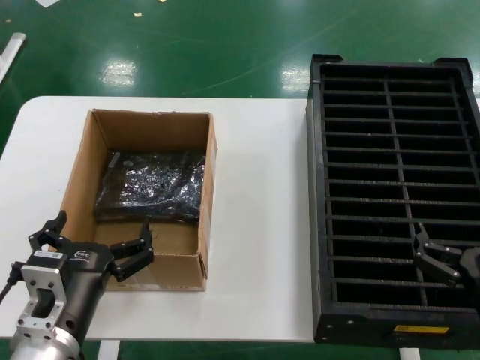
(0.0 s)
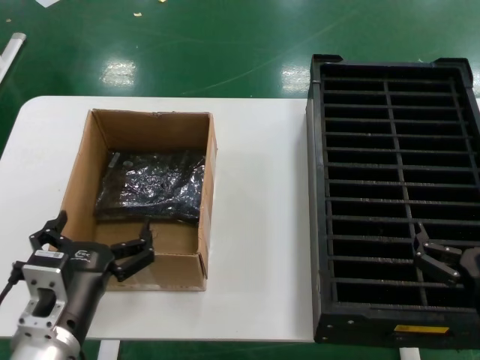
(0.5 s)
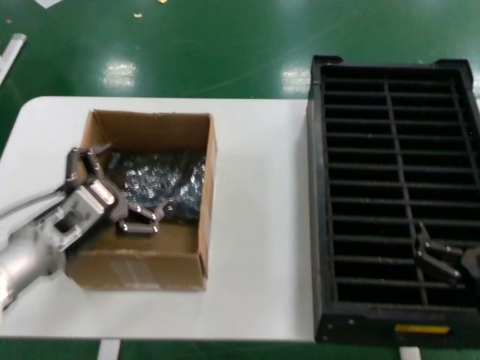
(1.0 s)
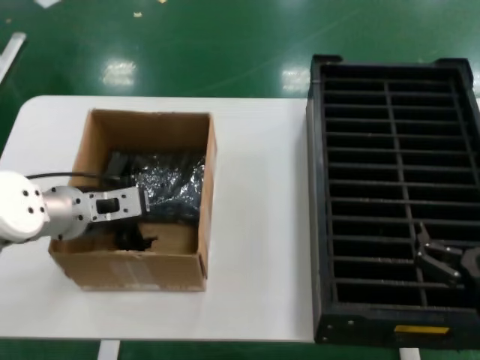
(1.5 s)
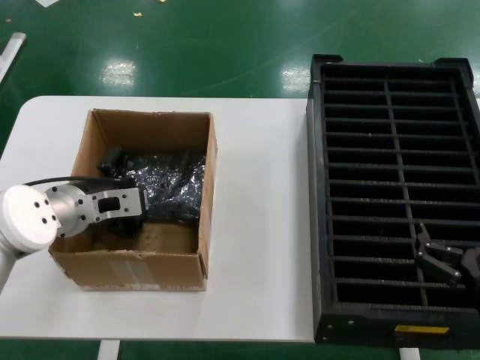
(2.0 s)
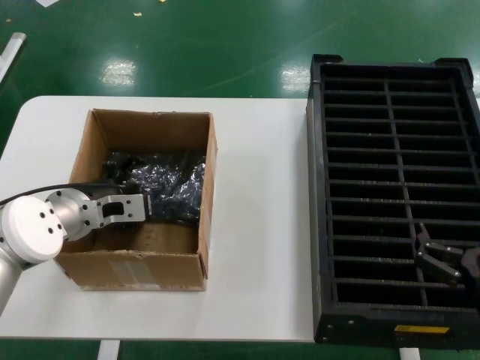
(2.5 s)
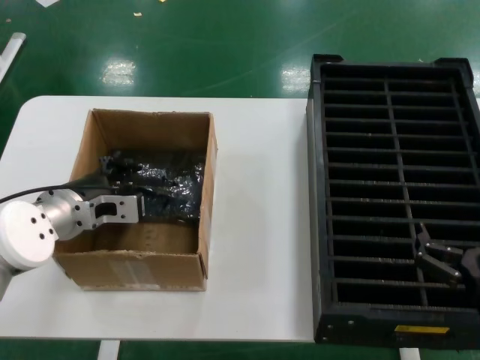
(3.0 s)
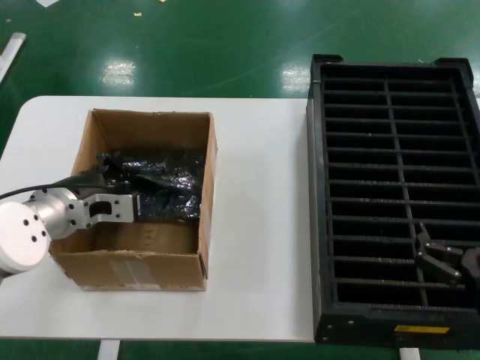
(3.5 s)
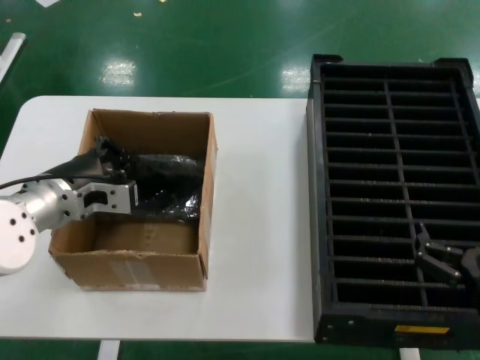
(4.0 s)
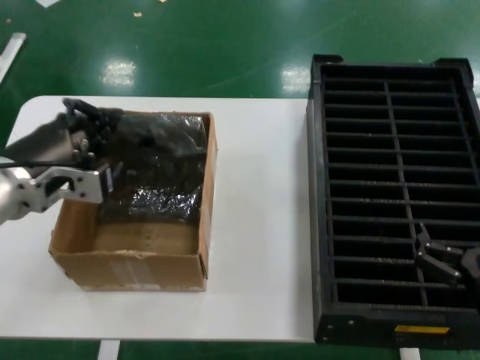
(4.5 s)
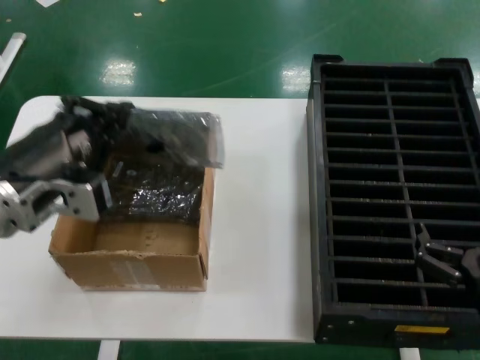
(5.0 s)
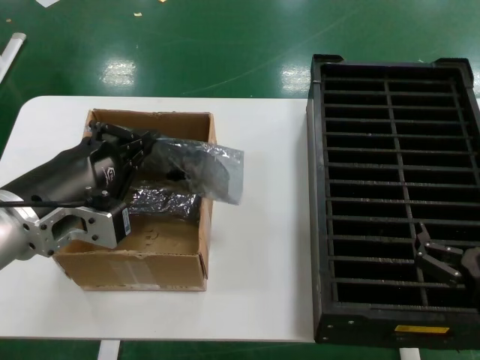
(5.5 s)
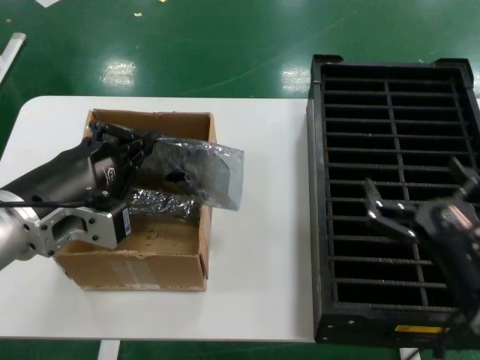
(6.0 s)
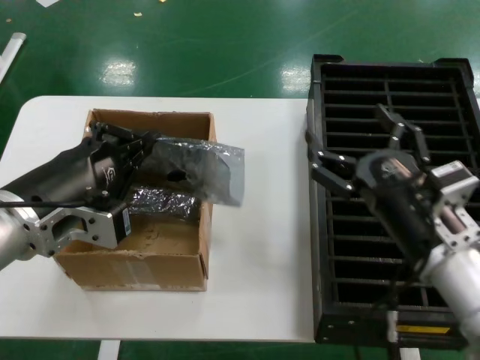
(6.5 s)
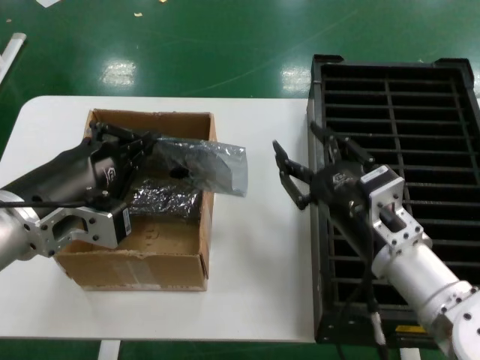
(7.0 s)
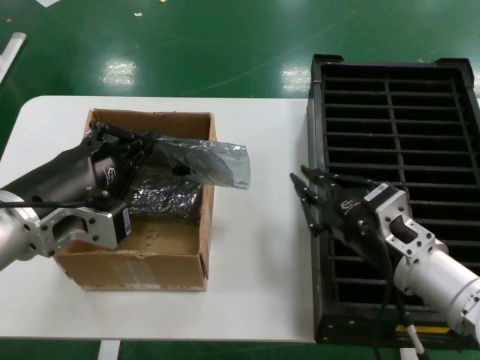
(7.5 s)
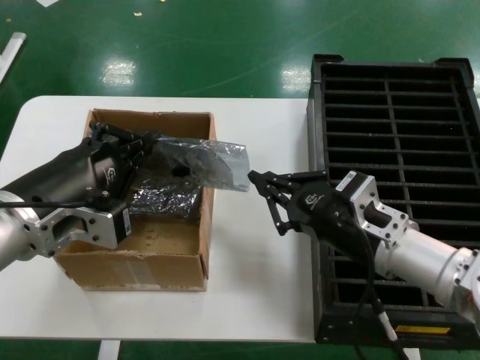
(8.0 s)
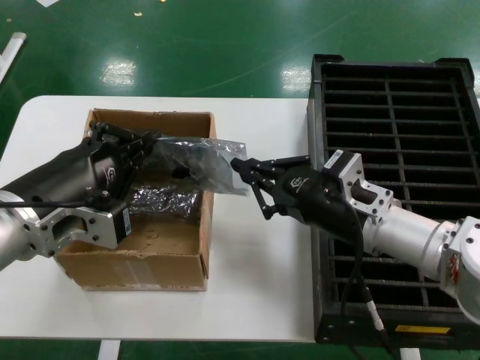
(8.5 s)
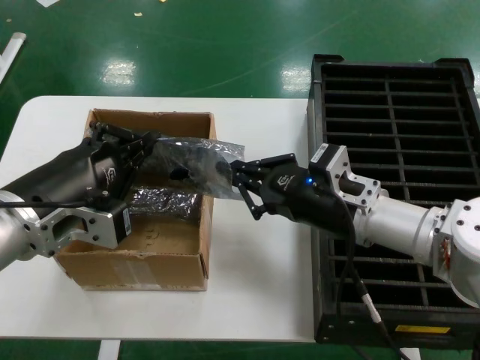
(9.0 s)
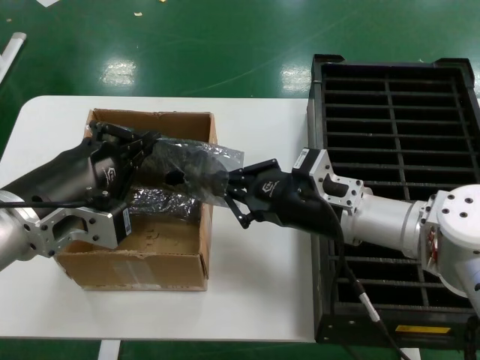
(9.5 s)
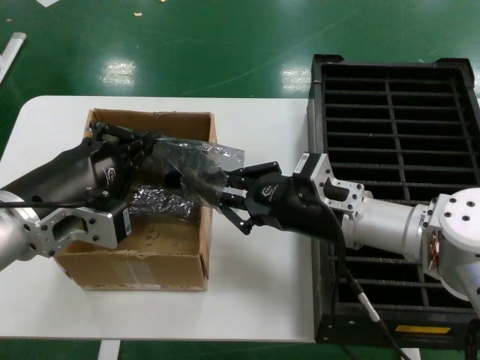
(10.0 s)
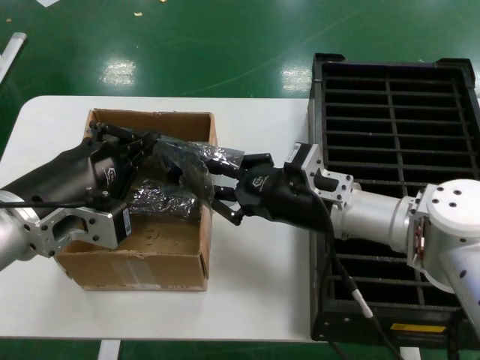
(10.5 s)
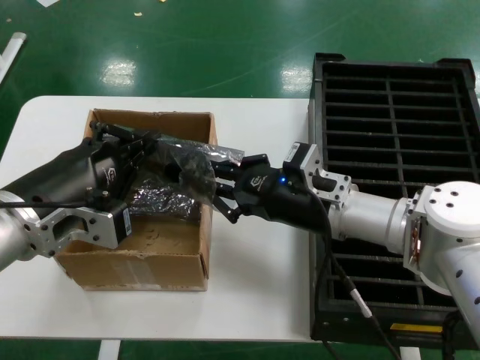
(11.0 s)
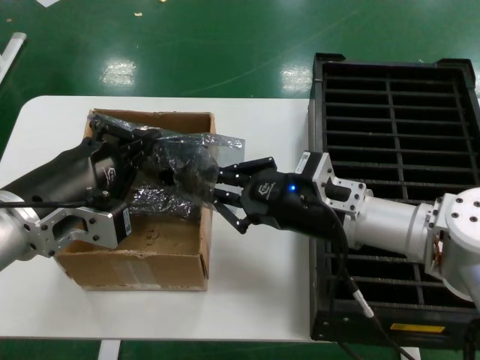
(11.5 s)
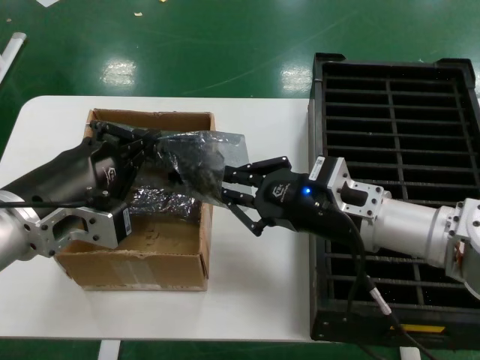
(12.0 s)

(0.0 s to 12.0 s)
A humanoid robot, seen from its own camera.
Task of the whole recording: take out graphics card from box remove packaging put into black container.
Step, 0.0 s - 3.0 s: Grasp the bag.
Step, 3.5 s - 5.5 s: Lift the bag.
0.0 s - 2.0 s: The left hand shifts about 20 cm forward and upward.
2.0 s - 4.0 s: There are only small adjustments of the hands.
4.0 s - 6.0 s: The left hand goes roughly 15 cm backward and upward.
6.0 s - 8.0 s: The right hand travels forward and to the left by approximately 10 cm.
8.0 s - 10.0 s: The right hand is displaced forward by some 5 cm.
10.0 s - 12.0 s: The hands make only small movements.

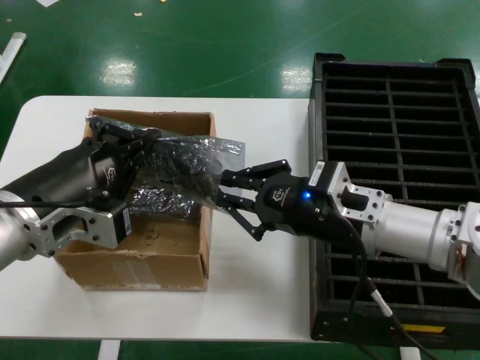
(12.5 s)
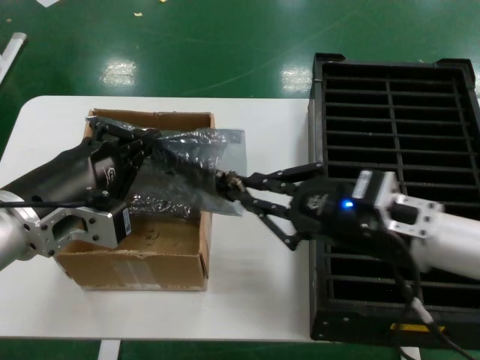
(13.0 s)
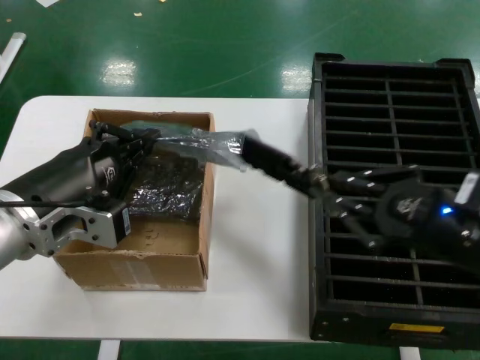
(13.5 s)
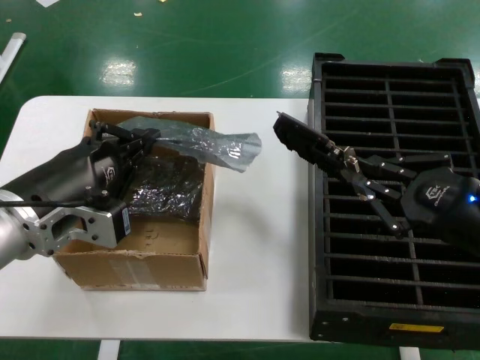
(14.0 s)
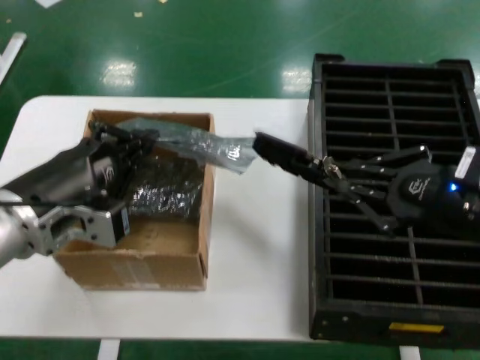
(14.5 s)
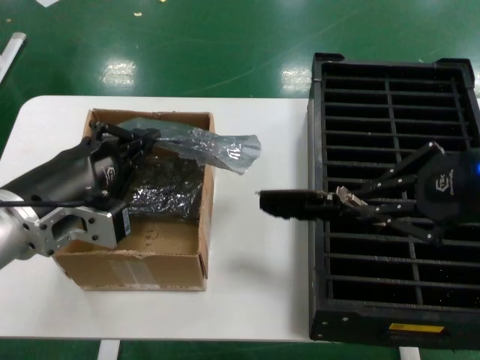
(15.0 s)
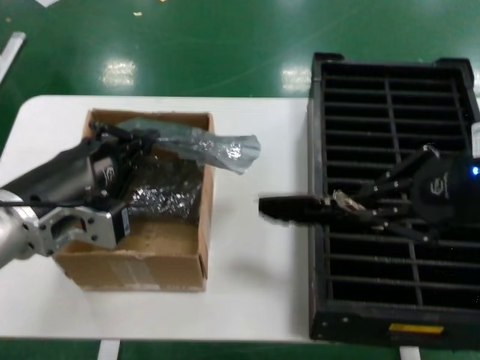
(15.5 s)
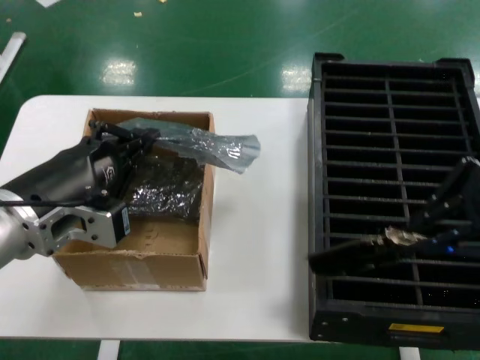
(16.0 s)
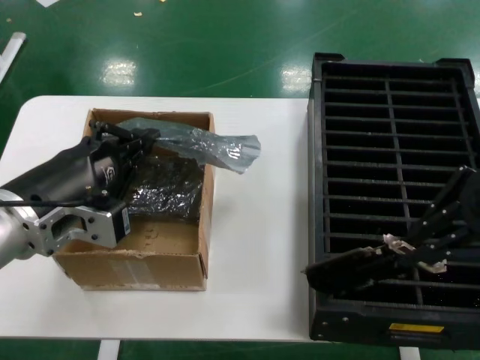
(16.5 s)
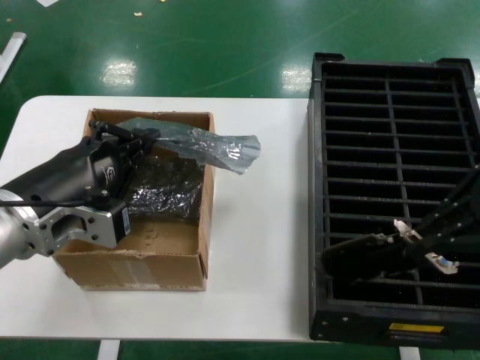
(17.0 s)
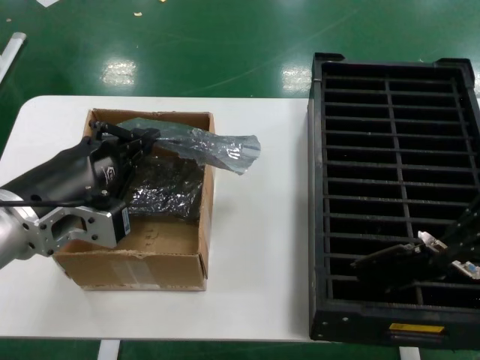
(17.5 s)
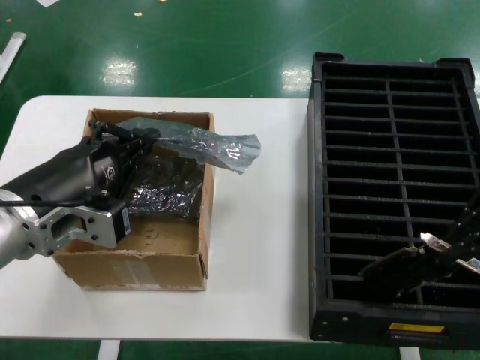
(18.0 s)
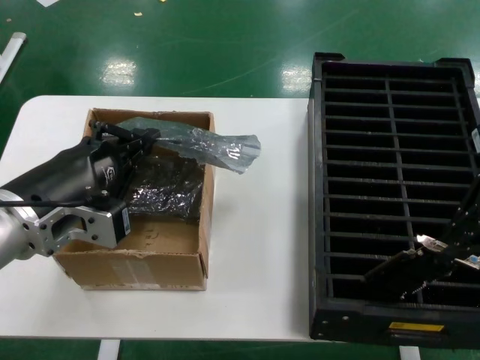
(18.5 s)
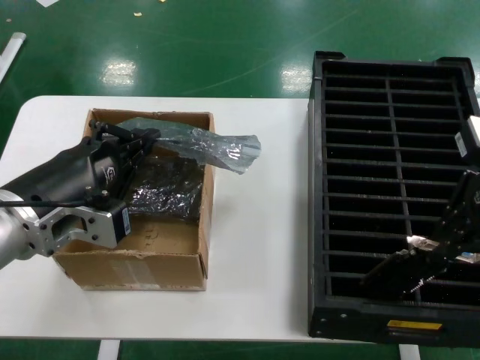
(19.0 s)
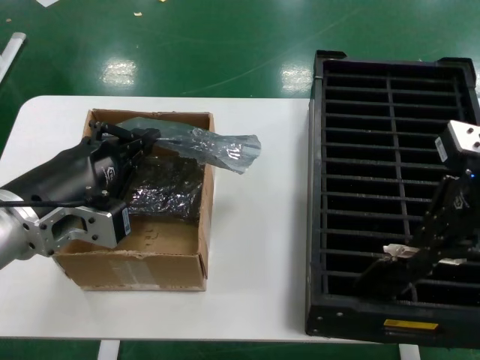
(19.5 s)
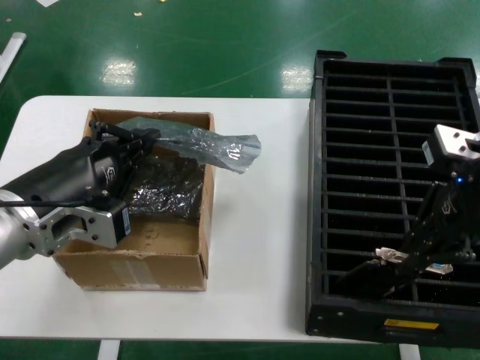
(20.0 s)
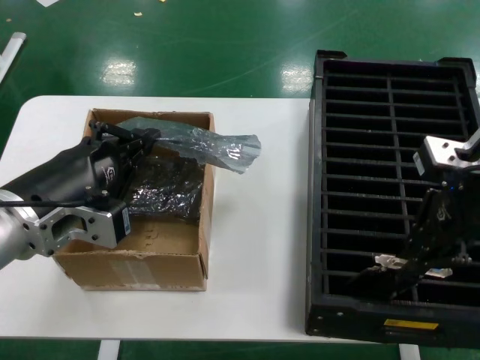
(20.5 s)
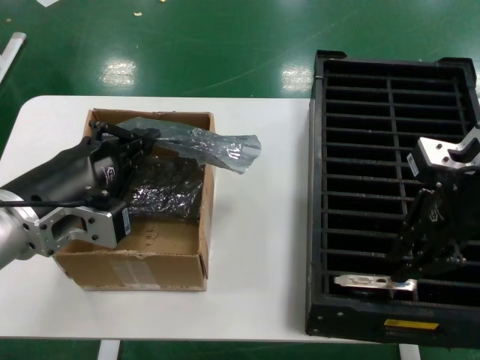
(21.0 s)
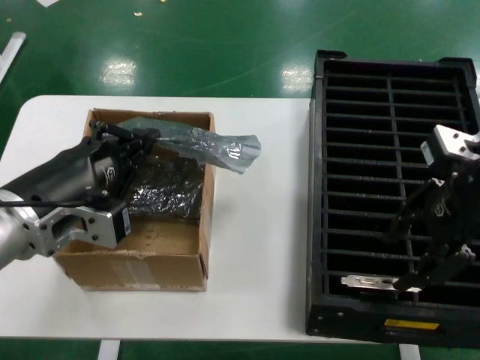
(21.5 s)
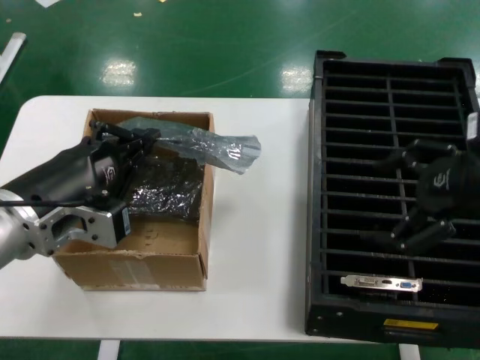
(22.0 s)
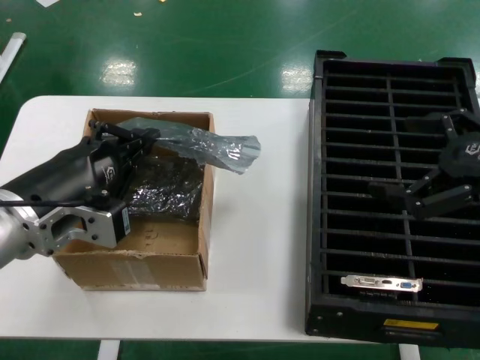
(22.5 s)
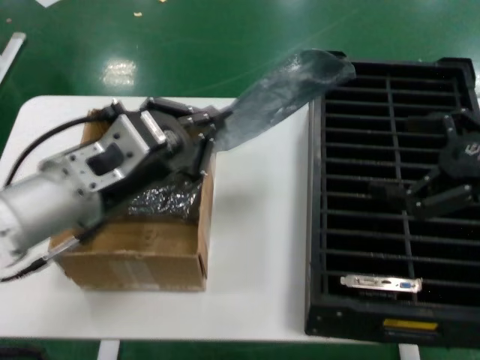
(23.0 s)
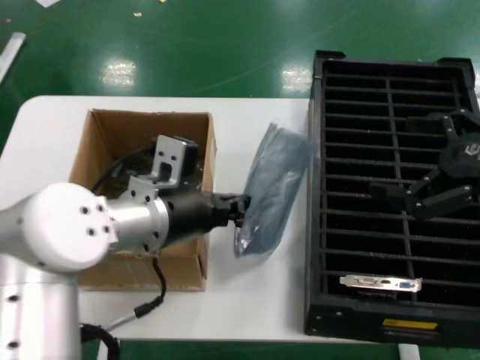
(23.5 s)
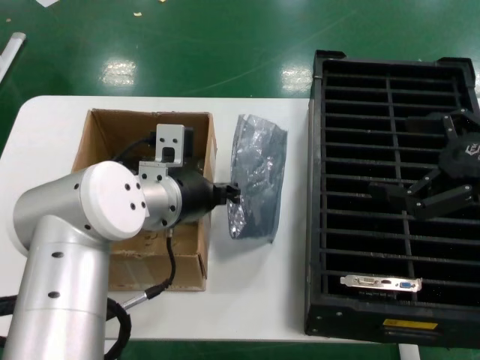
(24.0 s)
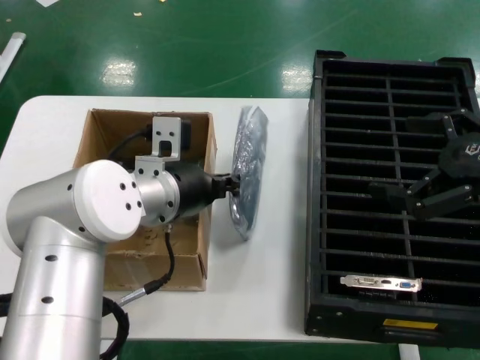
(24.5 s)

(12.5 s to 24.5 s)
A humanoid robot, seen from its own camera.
Task of the whole recording: take out graphics card from box remove packaging put into black container.
Step, 12.5 s - 14.5 s: Take out the hard disk of the bag.
Step, 15.0 s - 21.5 s: Place the hard disk in the hard disk enclosure.
12.5 s - 14.5 s: The right hand moves to the right, backward and upward, some 15 cm.
14.5 s - 16.5 s: The right hand shifts approximately 15 cm upward.
16.5 s - 18.5 s: The right hand shifts by about 5 cm.
18.5 s - 20.5 s: The right hand heads to the left, covering roughly 5 cm.
20.5 s - 22.5 s: The right hand moves to the right and backward, roughly 10 cm.
22.5 s - 24.5 s: The left hand heads forward and to the right, covering roughly 15 cm.

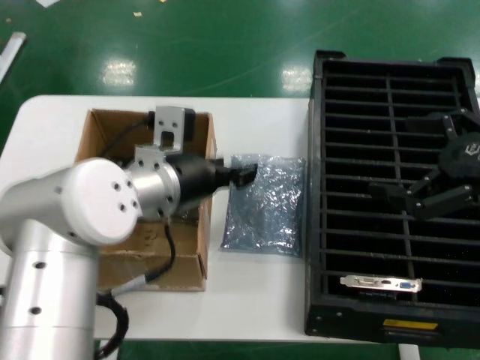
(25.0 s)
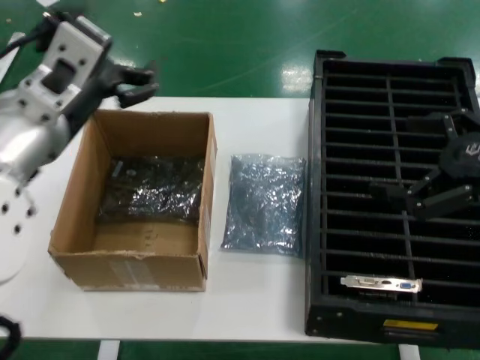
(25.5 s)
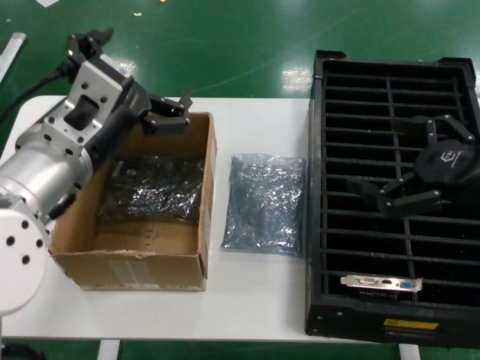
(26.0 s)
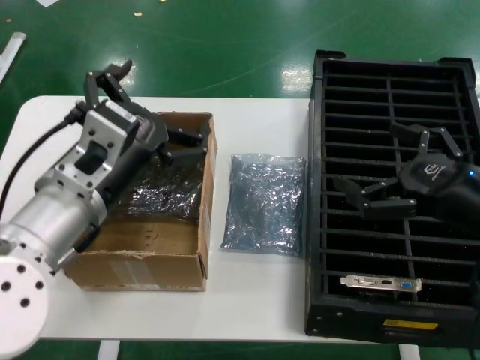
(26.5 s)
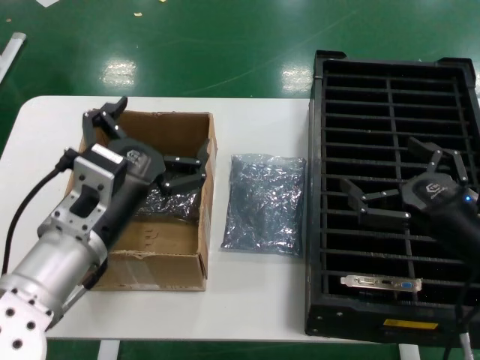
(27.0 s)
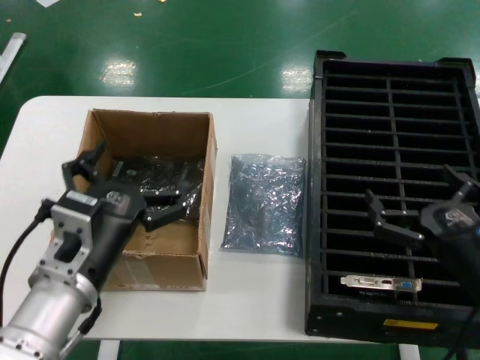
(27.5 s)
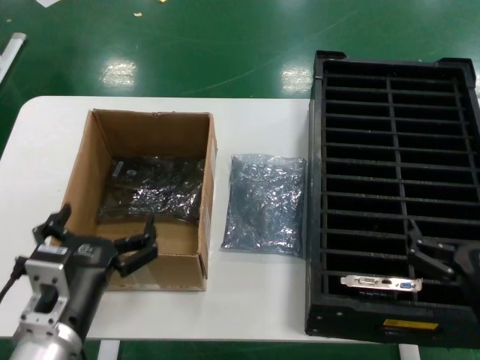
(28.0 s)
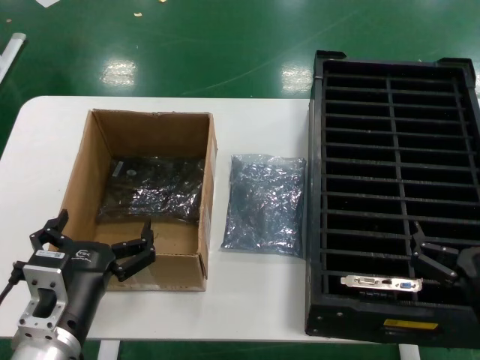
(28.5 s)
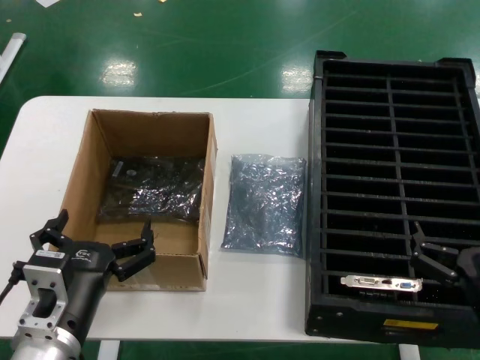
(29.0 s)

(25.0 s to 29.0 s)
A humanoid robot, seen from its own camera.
Task of the whole recording: take out graphics card from box remove packaging put into black container.
Step, 25.0 s - 27.5 s: Place the down the bag.
25.0 s - 27.0 s: The right hand is displaced downward and to the left by roughly 15 cm. The left hand heads backward, downward and to the left, covering some 10 cm.
27.0 s - 29.0 s: The right hand is displaced downward and backward by about 10 cm; the left hand heads downward, covering approximately 10 cm.
